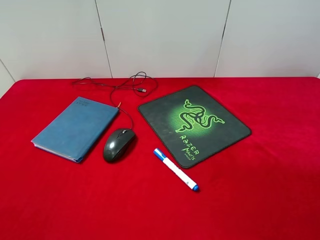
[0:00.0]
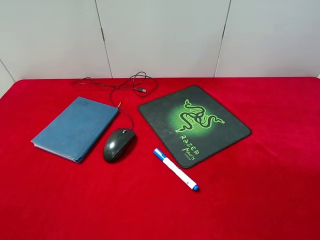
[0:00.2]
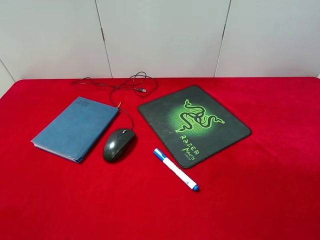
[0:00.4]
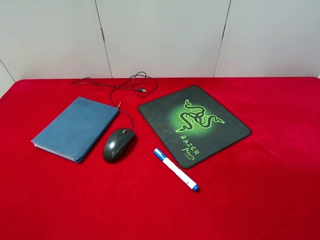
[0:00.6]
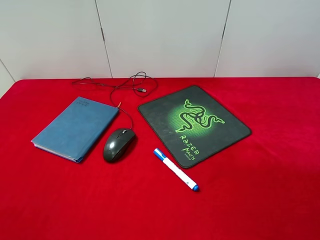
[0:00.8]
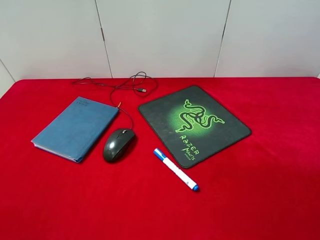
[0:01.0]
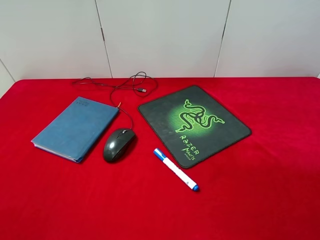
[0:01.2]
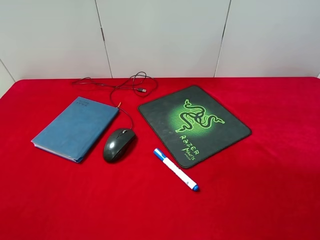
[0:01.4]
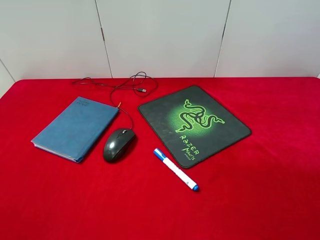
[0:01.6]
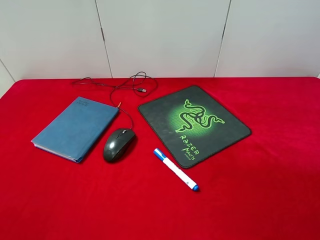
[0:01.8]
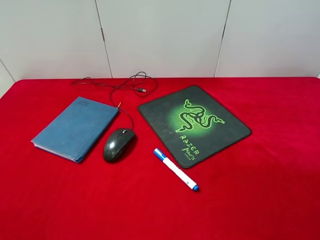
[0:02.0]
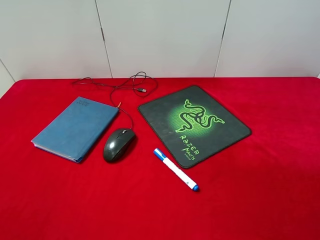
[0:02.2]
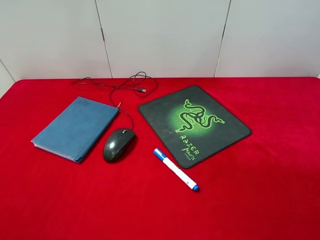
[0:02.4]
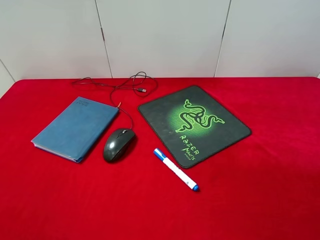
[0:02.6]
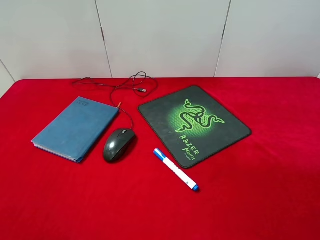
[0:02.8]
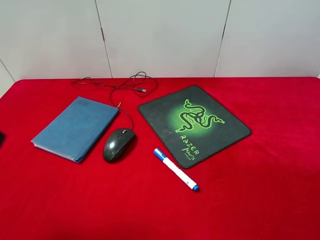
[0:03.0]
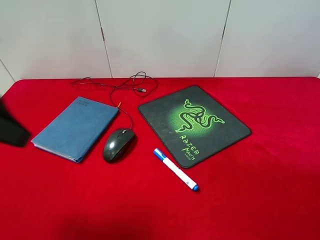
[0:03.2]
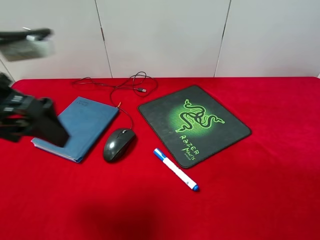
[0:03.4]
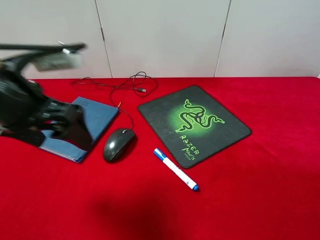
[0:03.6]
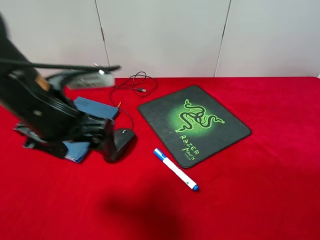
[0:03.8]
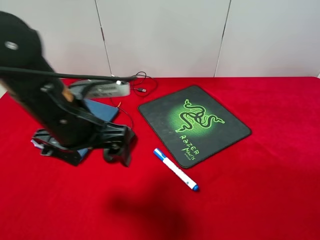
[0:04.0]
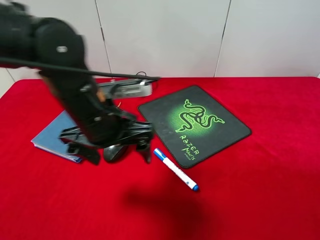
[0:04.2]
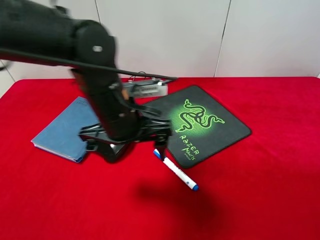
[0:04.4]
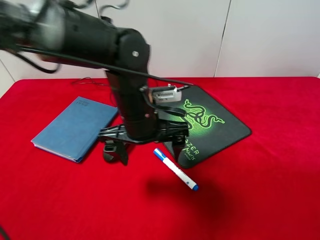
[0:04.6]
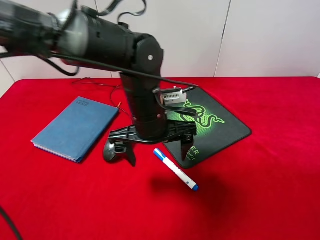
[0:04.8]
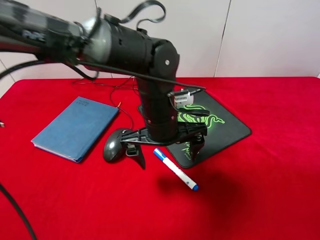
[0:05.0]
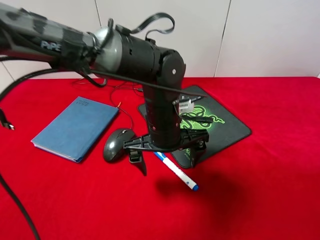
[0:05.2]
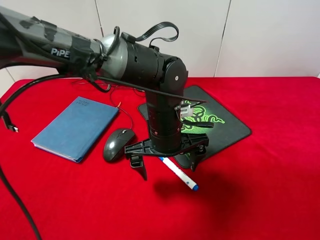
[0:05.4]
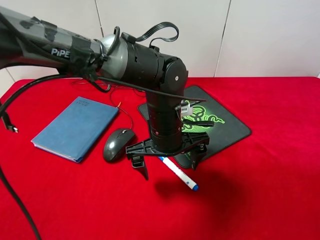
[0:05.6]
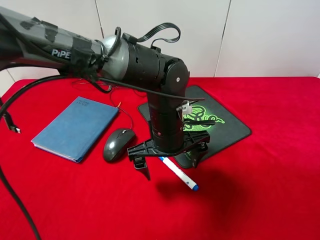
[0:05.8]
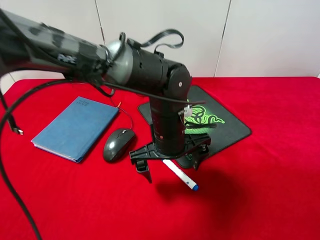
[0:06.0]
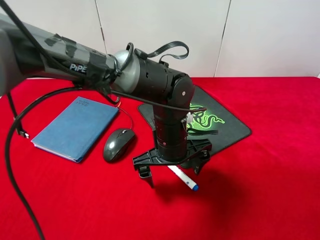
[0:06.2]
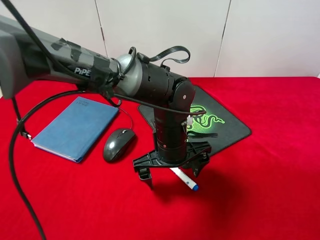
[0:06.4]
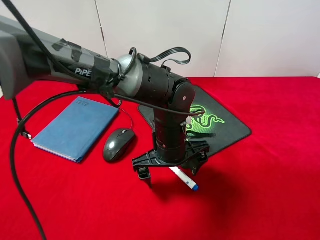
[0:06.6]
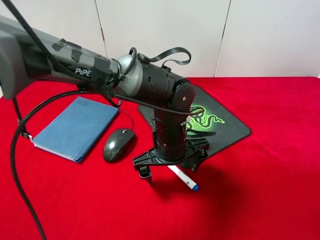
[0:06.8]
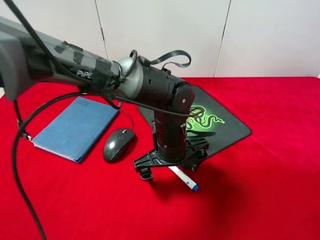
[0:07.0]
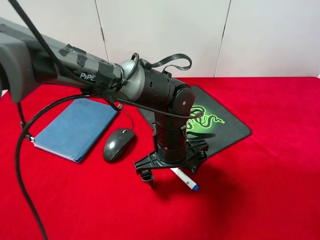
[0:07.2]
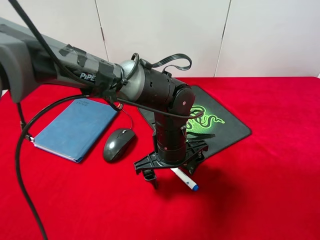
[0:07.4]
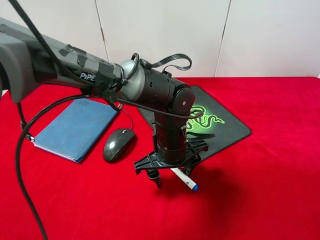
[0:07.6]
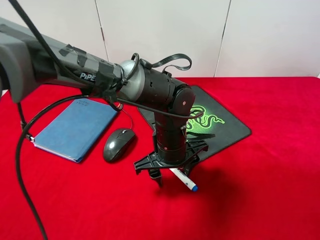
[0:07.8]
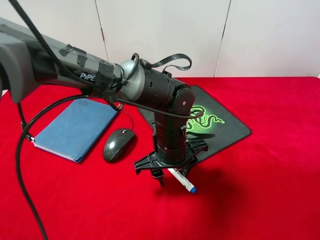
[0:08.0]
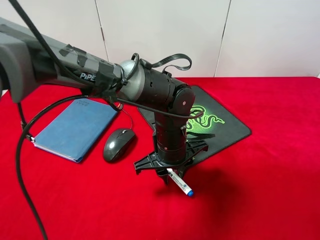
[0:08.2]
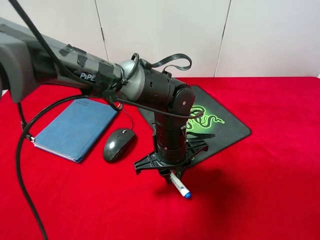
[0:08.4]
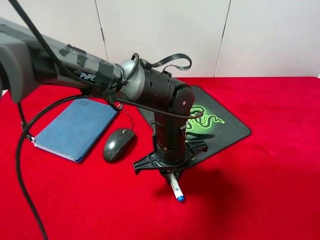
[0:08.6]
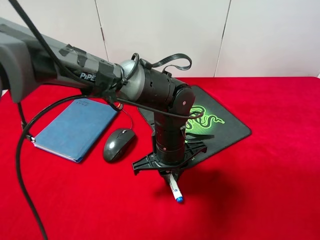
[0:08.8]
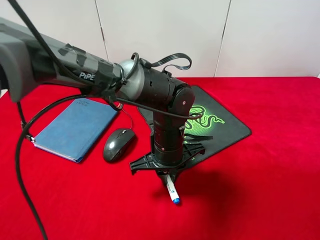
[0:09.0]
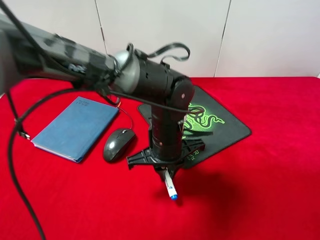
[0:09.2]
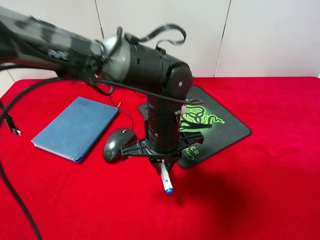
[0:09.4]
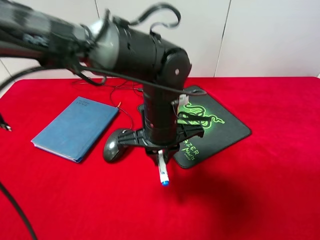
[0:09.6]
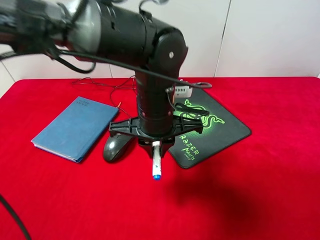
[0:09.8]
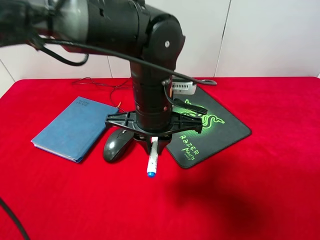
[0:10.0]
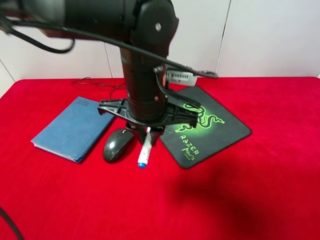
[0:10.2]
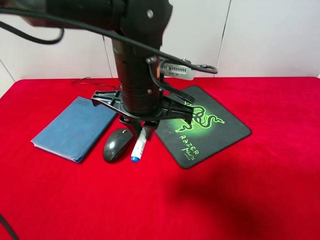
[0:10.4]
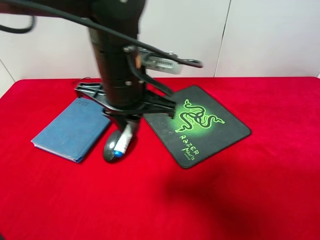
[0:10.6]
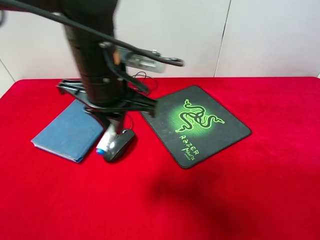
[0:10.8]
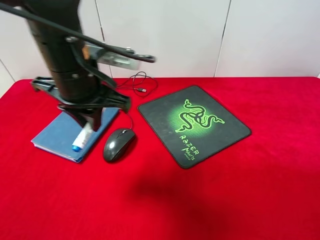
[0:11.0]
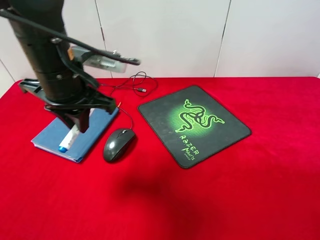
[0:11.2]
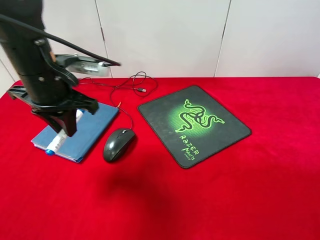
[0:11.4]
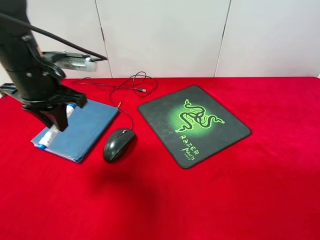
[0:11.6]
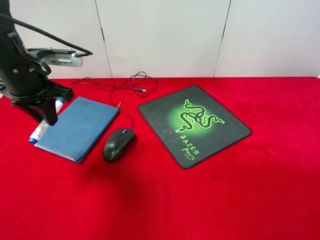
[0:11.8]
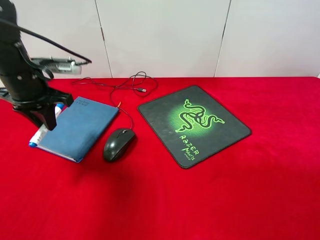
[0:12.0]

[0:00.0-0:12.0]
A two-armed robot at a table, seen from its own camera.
Step, 0:00.0 to 0:09.2: Pick up the marker pen with left gripper.
0:00.0 to 0:01.6: Both grippers stay put.
0:03.0 to 0:04.4: The left gripper shifts some 30 cm to the right, downward and forward.
0:04.4 to 0:06.0: The left gripper shifts about 10 cm to the right and downward.
0:06.0 to 0:07.6: The left gripper closes up.
0:07.6 to 0:09.0: The left gripper closes its fingers.
0:09.0 to 0:10.4: The left gripper heads upward, covering some 15 cm.
0:10.4 to 0:12.0: The left gripper moves to the left, roughly 25 cm.

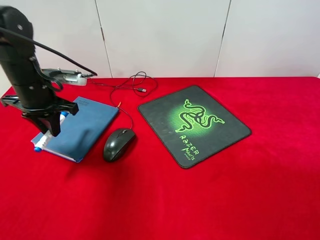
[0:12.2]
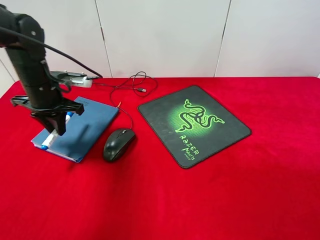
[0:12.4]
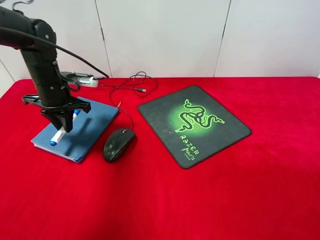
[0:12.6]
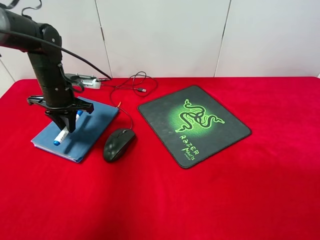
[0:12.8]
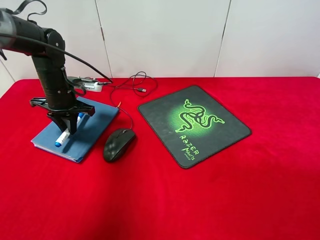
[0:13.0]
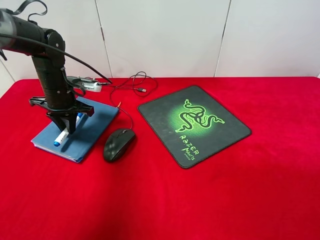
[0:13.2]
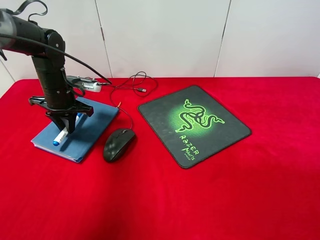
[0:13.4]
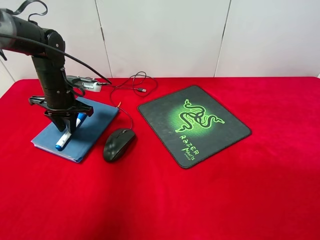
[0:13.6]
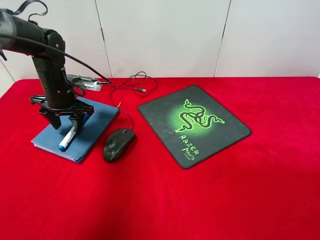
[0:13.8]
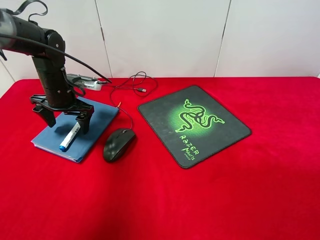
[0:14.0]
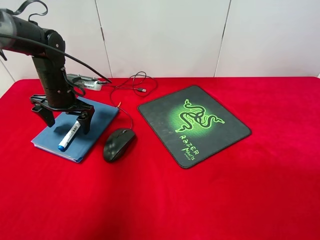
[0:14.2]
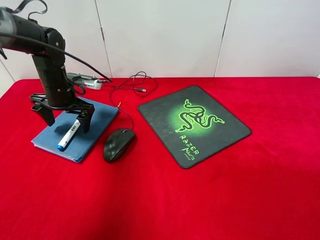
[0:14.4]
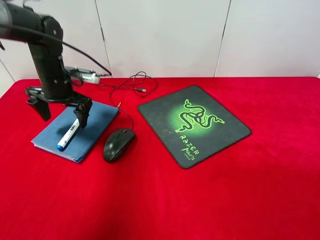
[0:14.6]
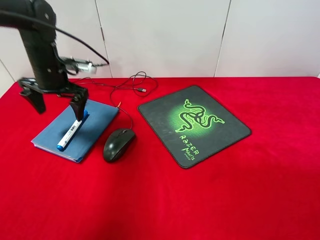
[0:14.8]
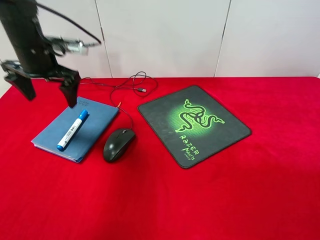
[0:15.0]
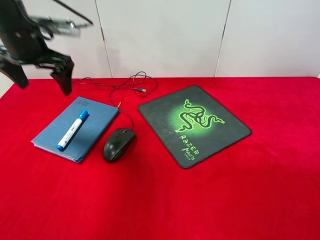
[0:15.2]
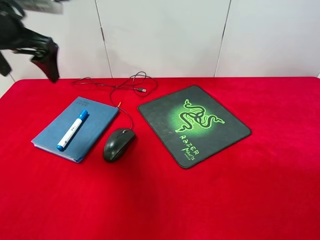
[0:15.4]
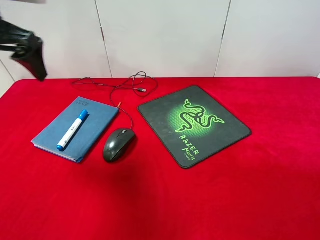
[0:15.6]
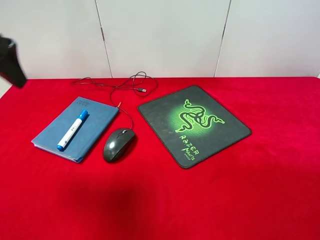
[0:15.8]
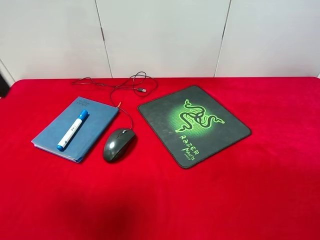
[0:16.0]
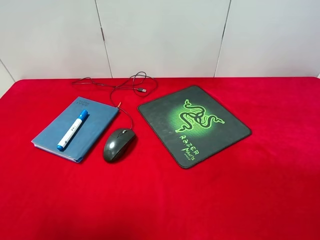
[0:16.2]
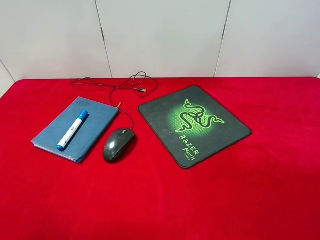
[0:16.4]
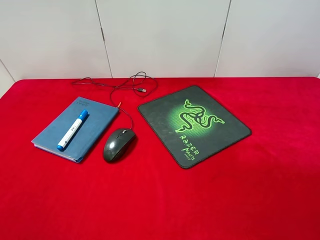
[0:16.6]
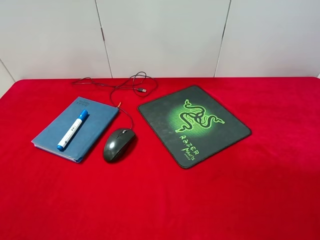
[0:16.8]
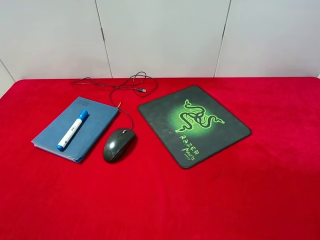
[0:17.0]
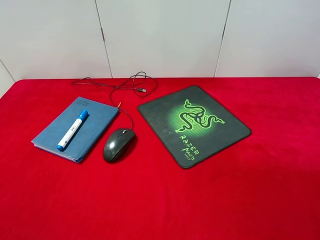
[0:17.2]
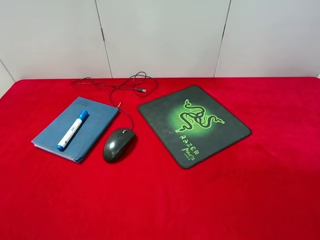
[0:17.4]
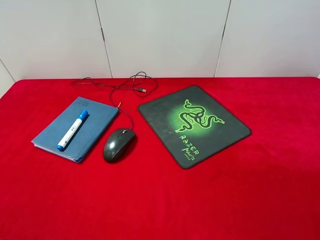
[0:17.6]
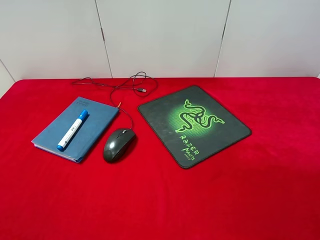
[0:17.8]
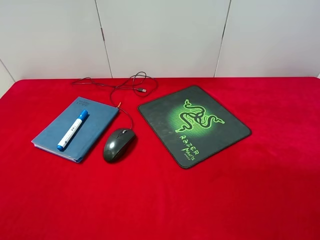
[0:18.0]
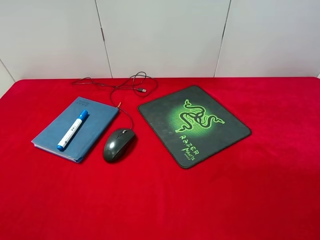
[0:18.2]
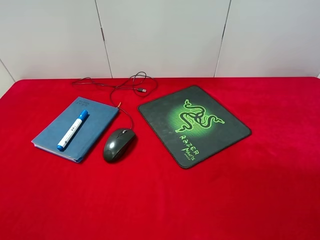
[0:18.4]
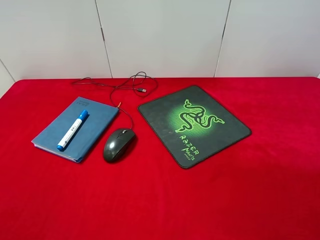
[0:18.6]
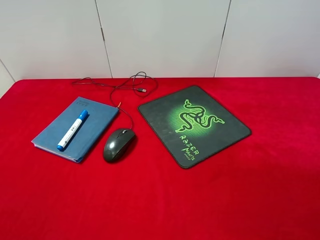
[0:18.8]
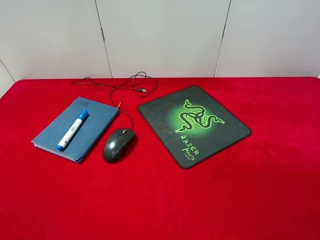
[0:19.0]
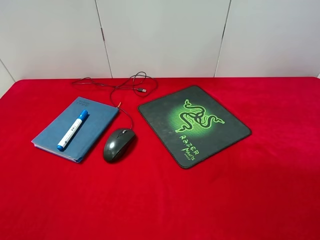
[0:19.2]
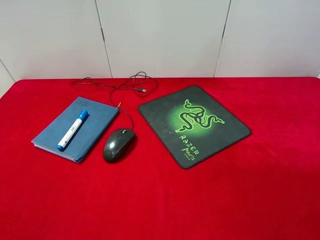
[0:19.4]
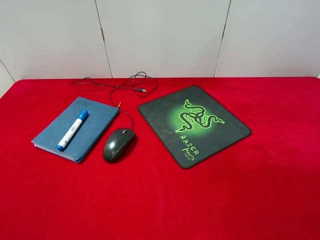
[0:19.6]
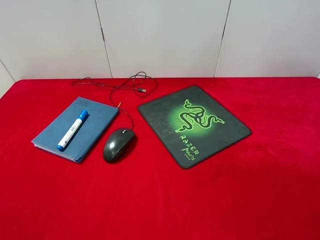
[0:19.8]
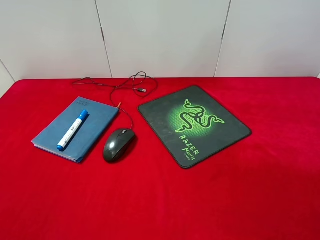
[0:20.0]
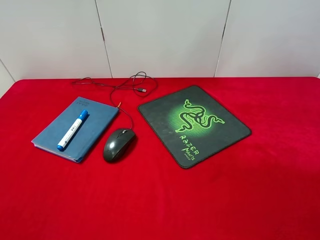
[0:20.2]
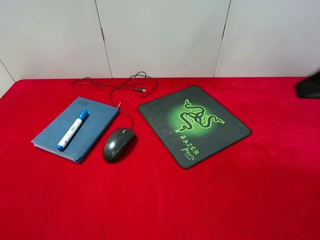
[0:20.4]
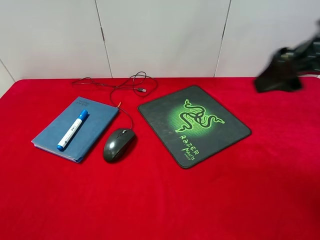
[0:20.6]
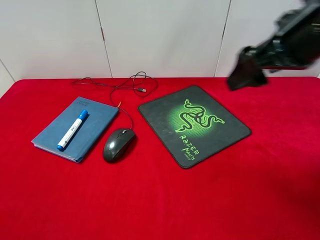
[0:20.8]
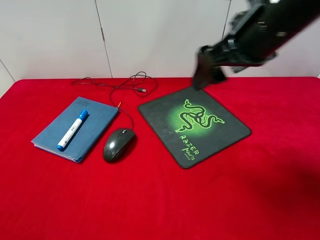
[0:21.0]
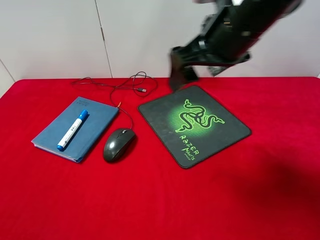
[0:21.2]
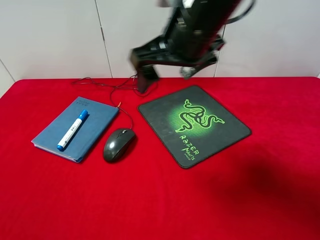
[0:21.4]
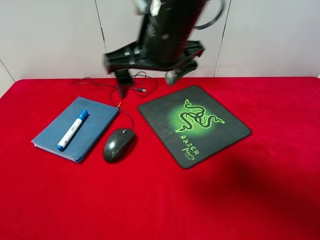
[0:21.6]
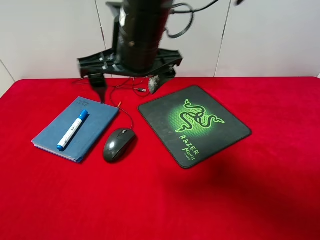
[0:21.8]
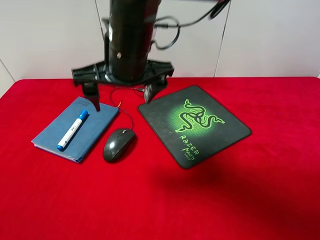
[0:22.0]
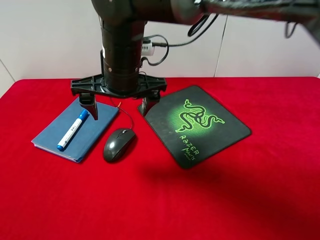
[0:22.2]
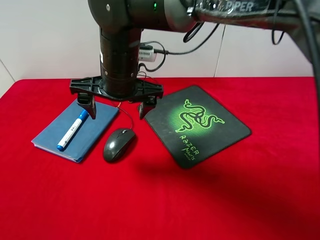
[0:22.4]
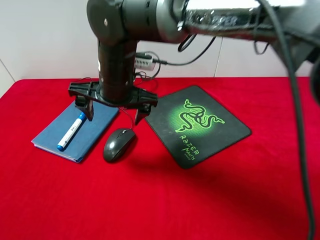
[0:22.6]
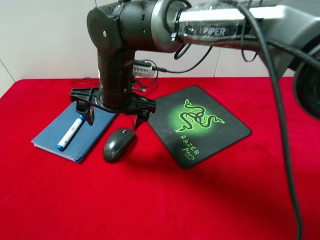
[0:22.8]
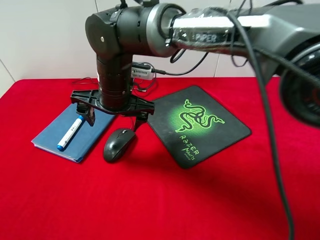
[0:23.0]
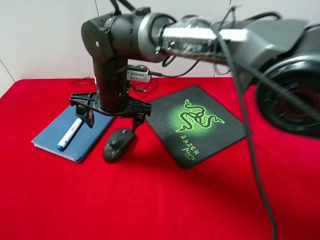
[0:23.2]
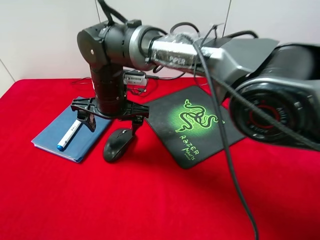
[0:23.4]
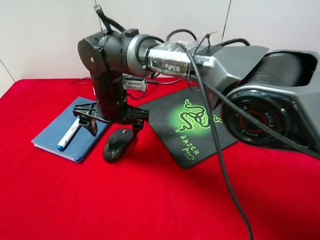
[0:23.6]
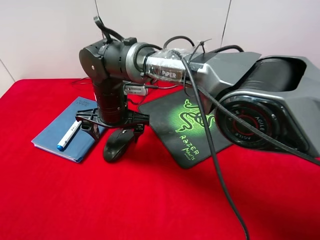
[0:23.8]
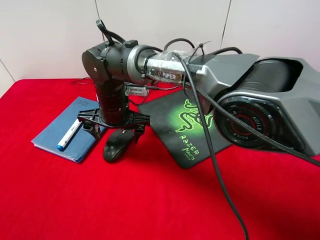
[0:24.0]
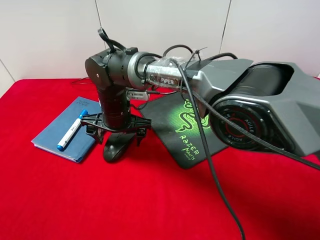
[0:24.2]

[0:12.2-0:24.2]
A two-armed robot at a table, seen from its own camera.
Step, 0:12.2 to 0:14.2: Place the marker pen on the notebook with left gripper.
0:12.2 to 0:13.8: The left gripper goes about 5 cm forward, and opens its fingers.
0:13.8 to 0:15.2: The left gripper shifts approximately 15 cm upward.
0:15.2 to 0:16.6: The left gripper goes roughly 30 cm backward.
0:19.8 to 0:21.2: The right gripper is displaced forward and to the left by about 30 cm.
0:21.2 to 0:22.6: The right gripper moves to the left and downward, about 20 cm.
0:22.6 to 0:24.2: The right gripper shifts approximately 10 cm downward.
